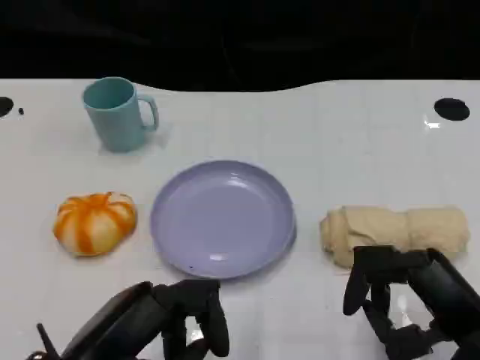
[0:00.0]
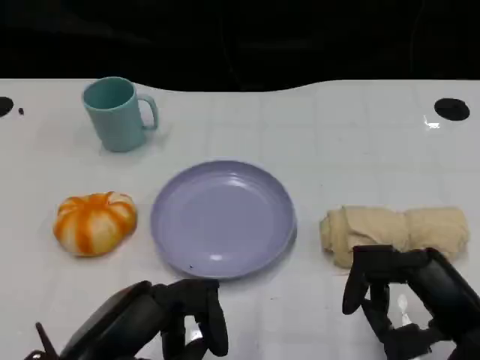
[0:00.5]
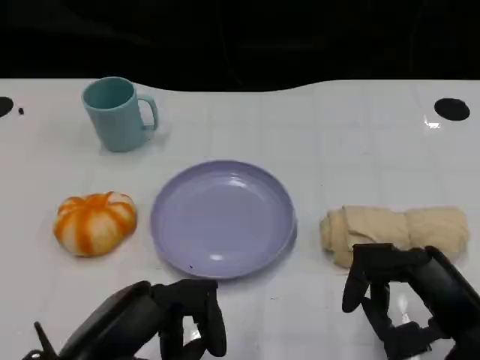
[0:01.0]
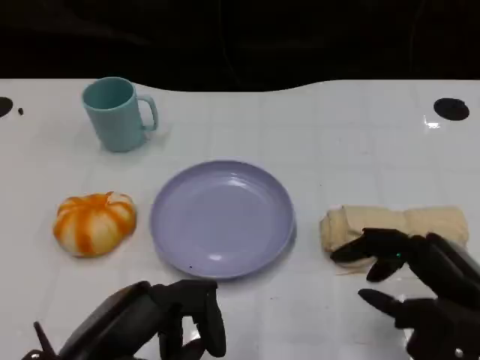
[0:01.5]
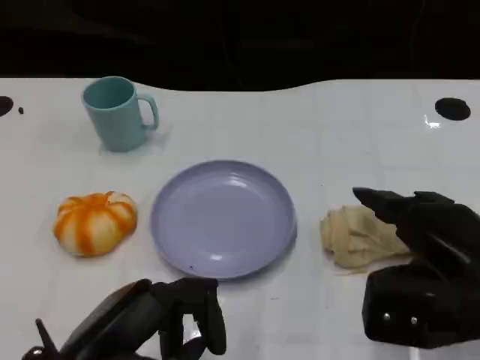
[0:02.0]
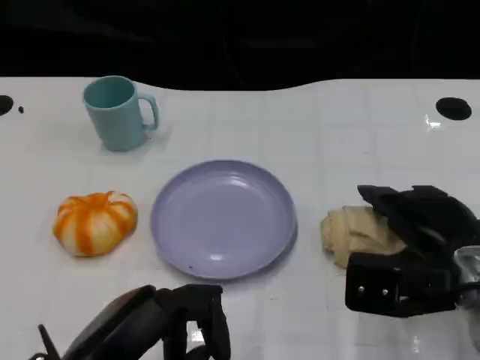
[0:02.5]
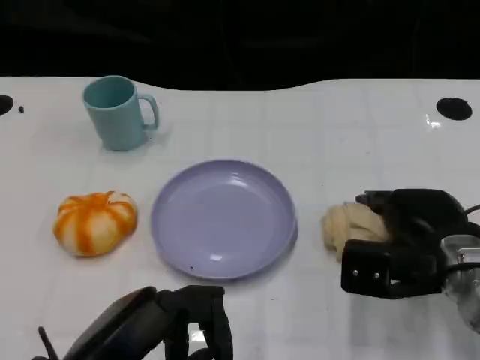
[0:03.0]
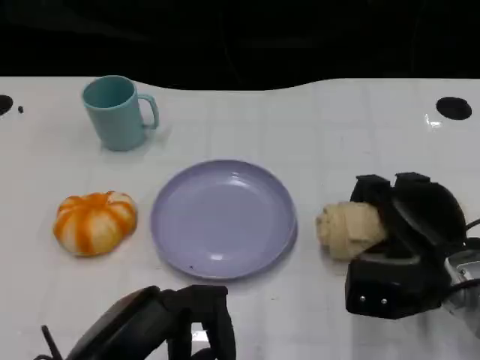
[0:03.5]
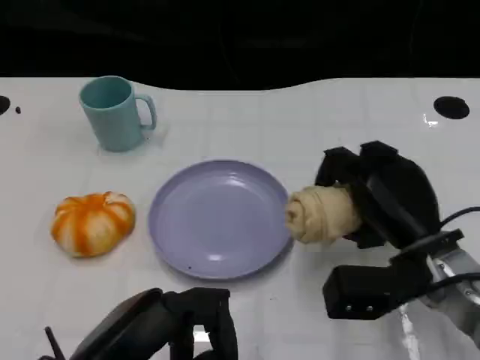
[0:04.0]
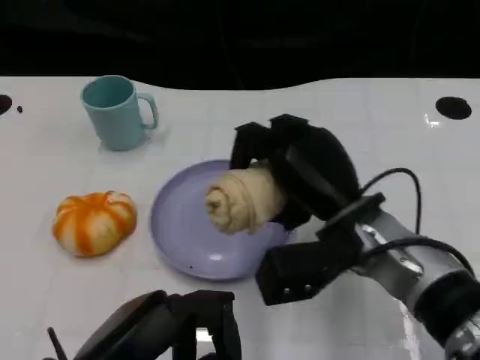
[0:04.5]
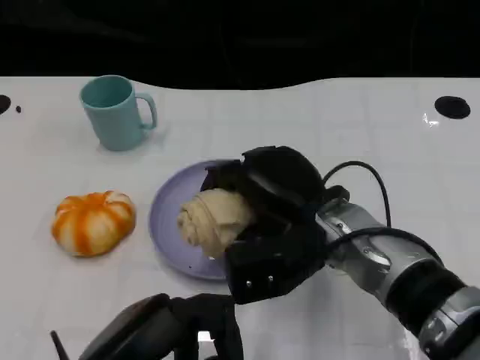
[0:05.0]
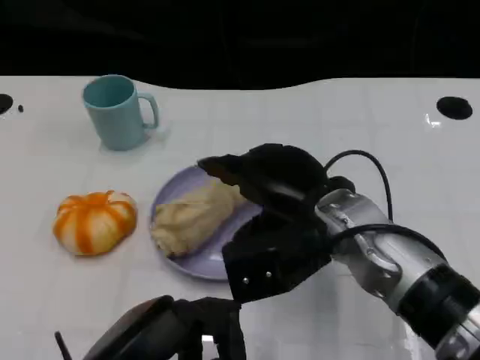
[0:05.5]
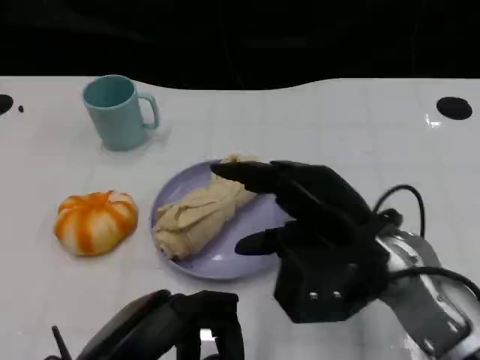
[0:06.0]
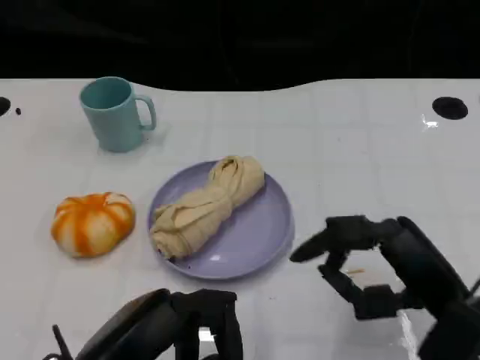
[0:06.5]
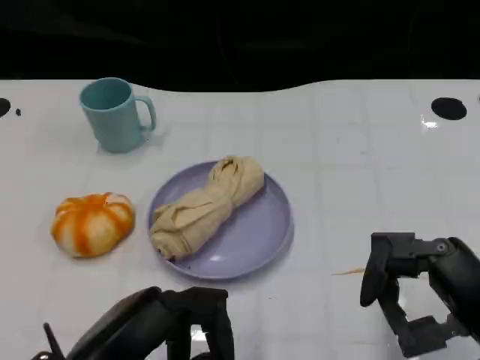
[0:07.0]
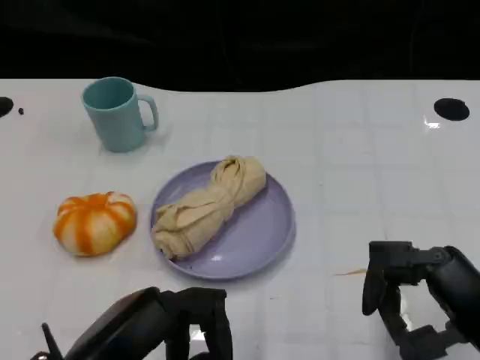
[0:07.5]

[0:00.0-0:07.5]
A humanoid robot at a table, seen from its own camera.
Task of the whole recording: Grasp the towel on the left side of the plate with the left hand and place it into the plate.
0:00.0 to 0:02.0: The right hand changes place by about 5 cm.
0:02.0 to 0:04.0: The right hand moves forward and downward, approximately 10 cm.
0:04.0 to 0:05.5: The right hand travels to the left and upward by approximately 10 cm.
0:05.5 to 0:07.5: The right hand is displaced to the right and backward by about 20 cm.
